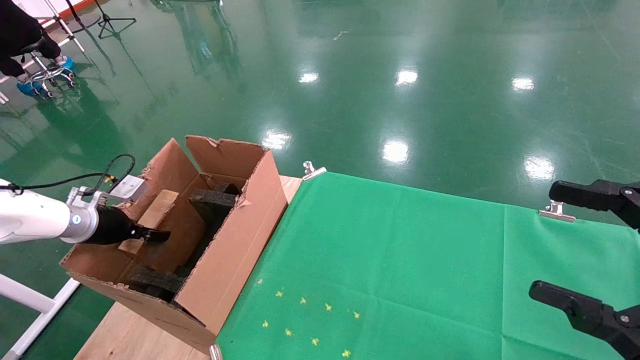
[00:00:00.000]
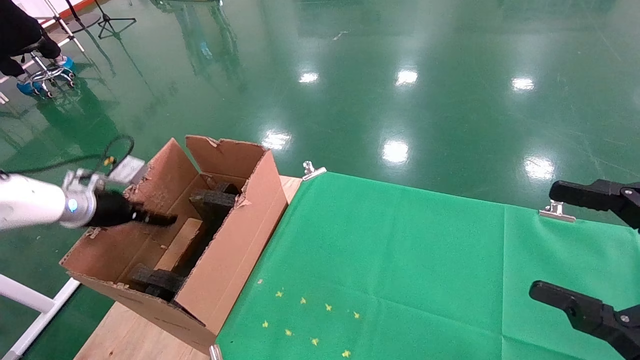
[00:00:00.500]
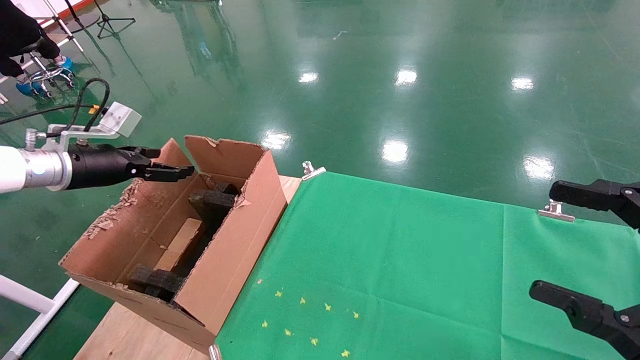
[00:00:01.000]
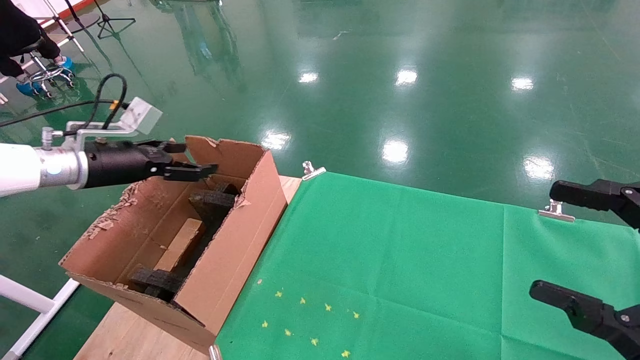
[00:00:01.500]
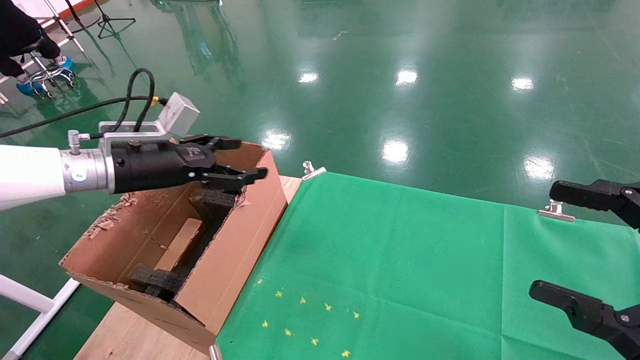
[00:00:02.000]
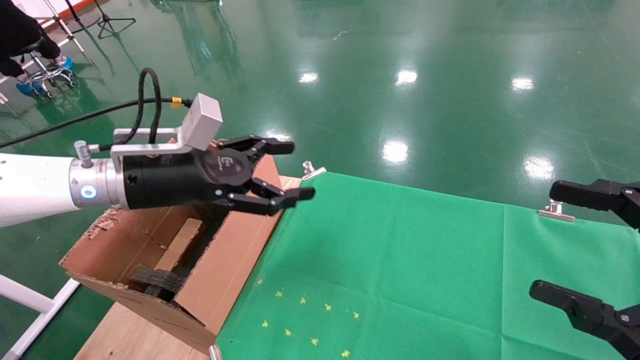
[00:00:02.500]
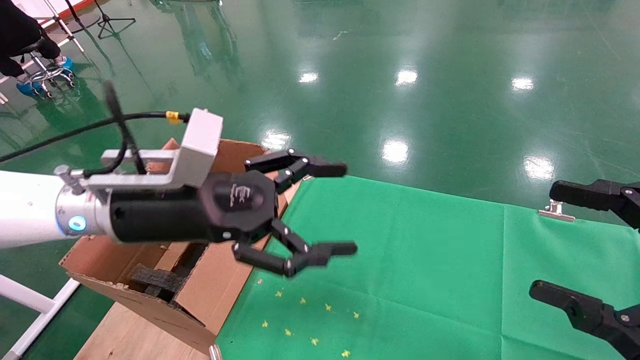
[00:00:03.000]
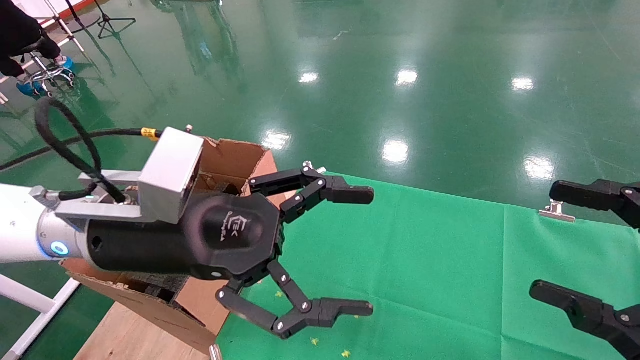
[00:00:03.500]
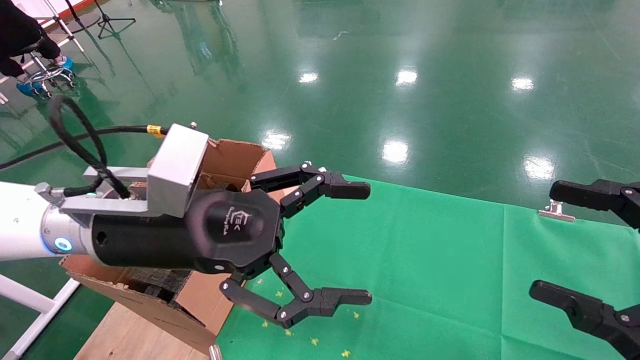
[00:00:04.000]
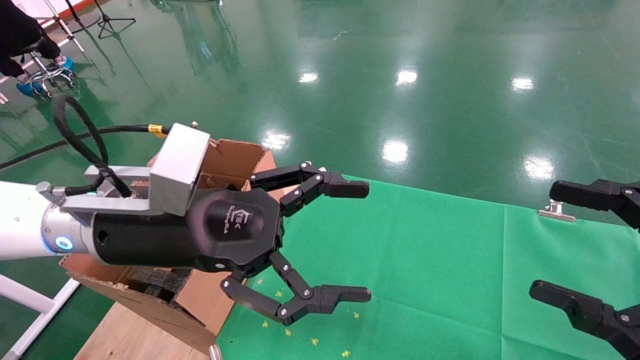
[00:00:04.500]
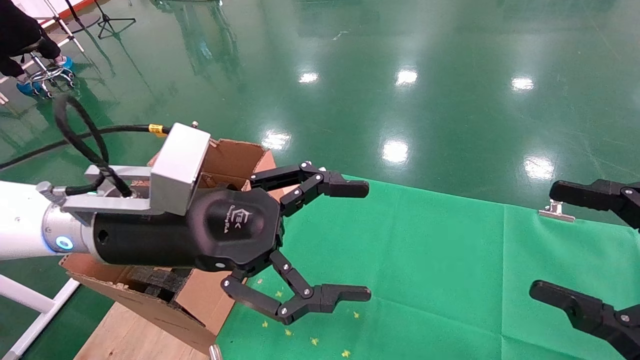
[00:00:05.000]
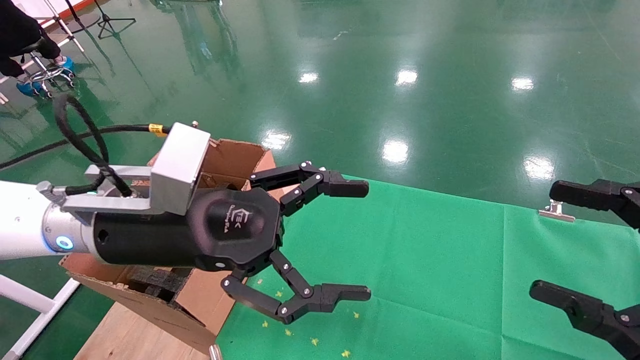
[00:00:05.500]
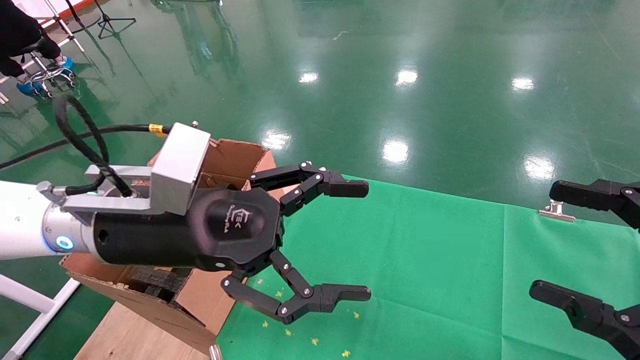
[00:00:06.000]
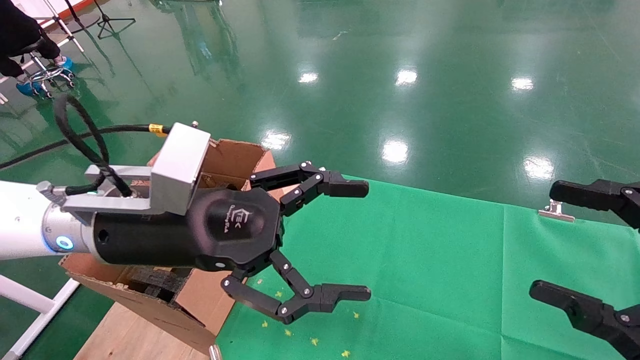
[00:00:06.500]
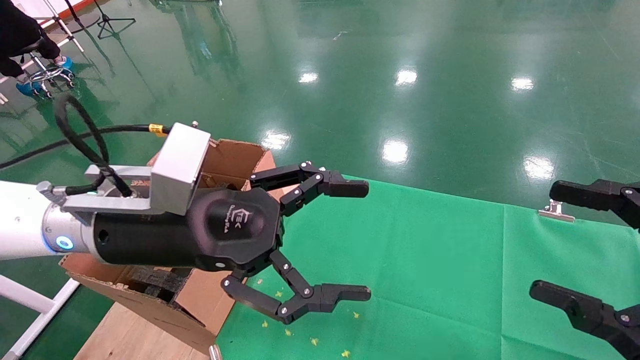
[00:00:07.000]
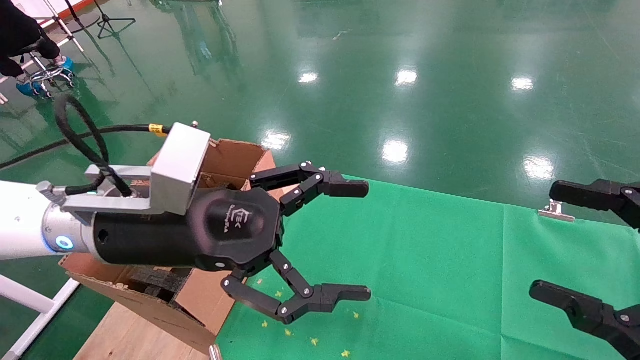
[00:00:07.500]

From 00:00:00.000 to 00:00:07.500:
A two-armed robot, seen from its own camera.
Task of the whole recording: using a robotic arm to pick up a cardboard box and palace it the carton.
From 00:00:00.000 to 00:00:02.000: The left gripper moves to the right and upward, some 20 cm, and opens its fingers.
From 00:00:02.000 to 00:00:04.000: The left gripper shifts some 20 cm to the right and backward.
From 00:00:04.000 to 00:00:07.500: Both grippers stay about where they are.

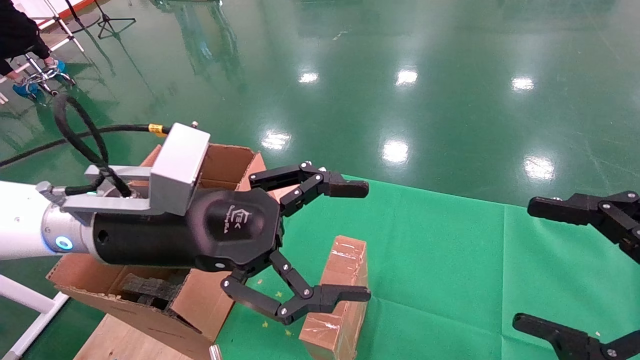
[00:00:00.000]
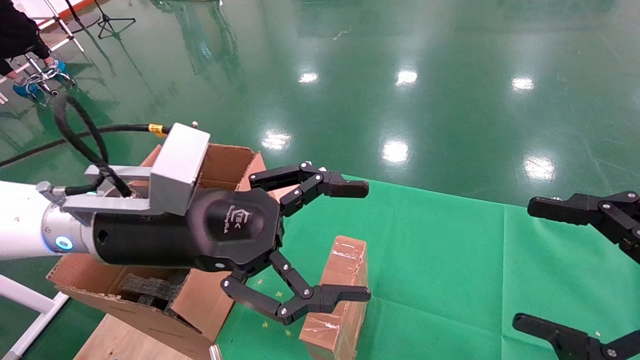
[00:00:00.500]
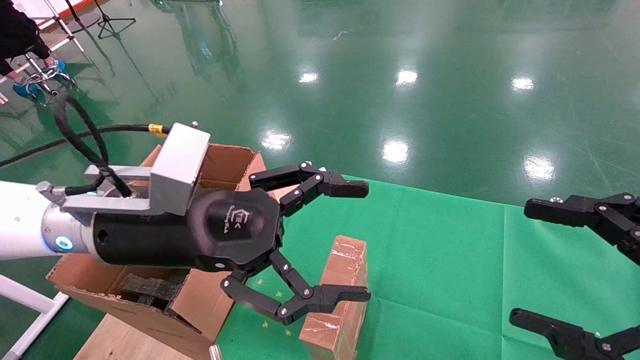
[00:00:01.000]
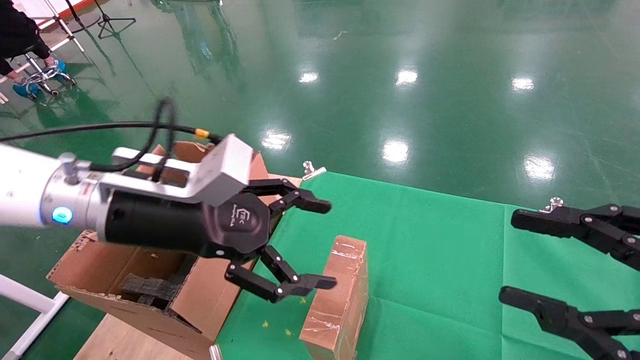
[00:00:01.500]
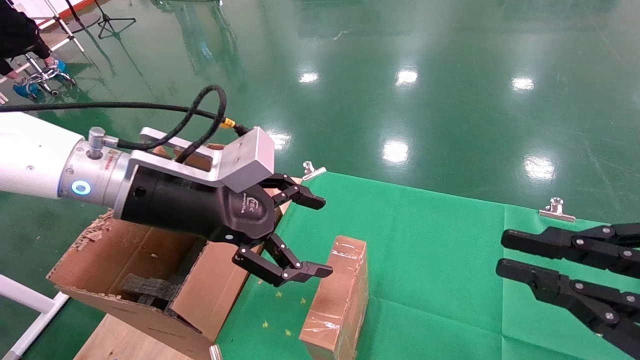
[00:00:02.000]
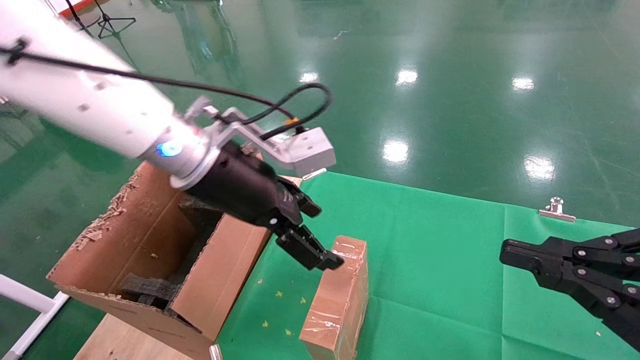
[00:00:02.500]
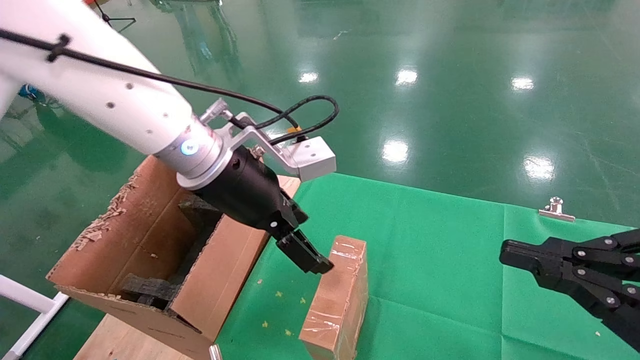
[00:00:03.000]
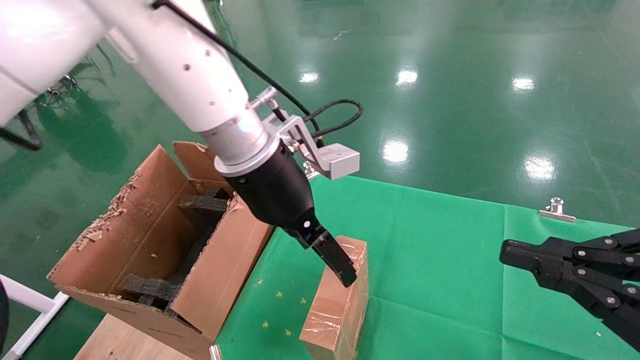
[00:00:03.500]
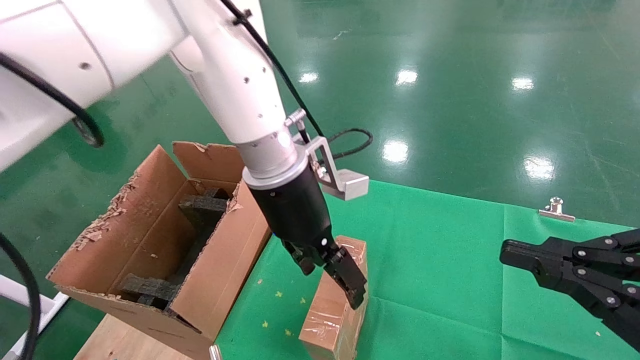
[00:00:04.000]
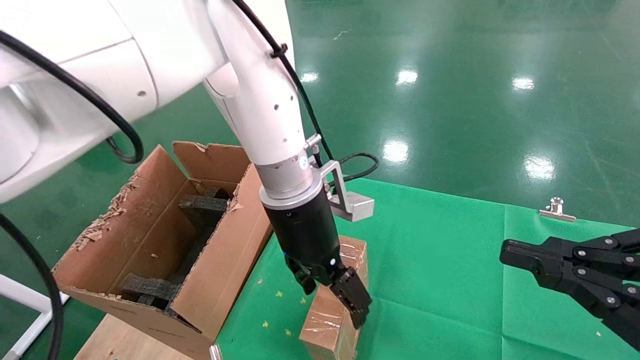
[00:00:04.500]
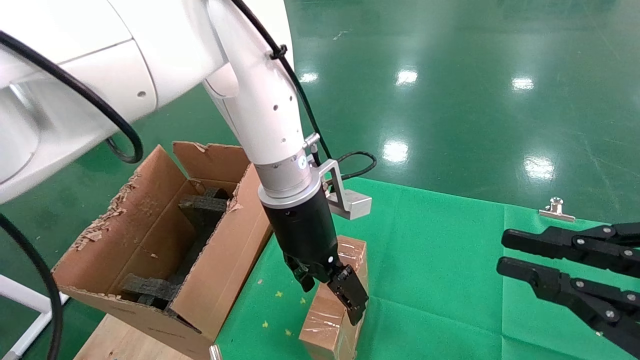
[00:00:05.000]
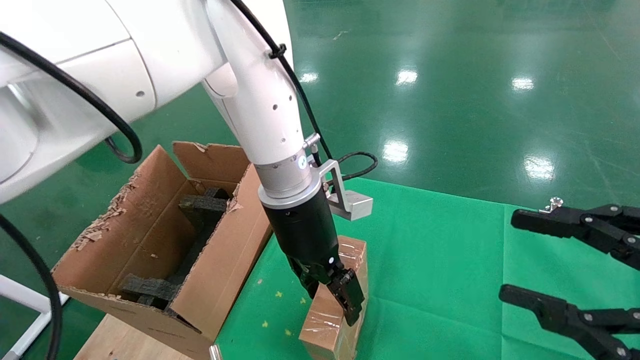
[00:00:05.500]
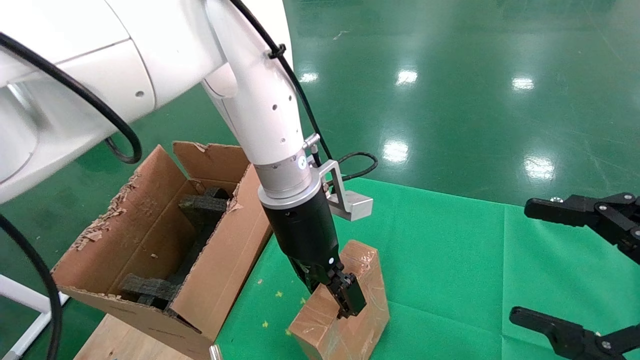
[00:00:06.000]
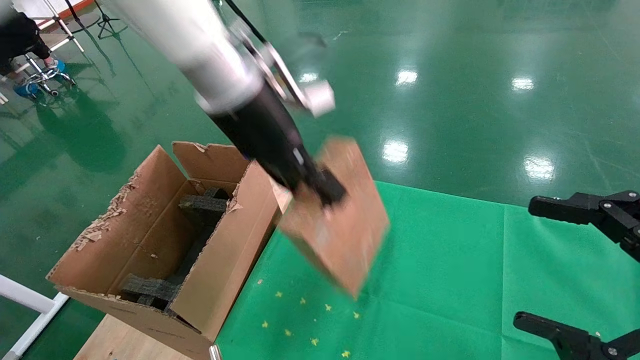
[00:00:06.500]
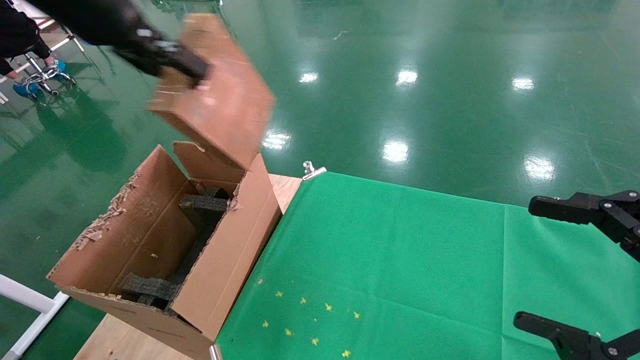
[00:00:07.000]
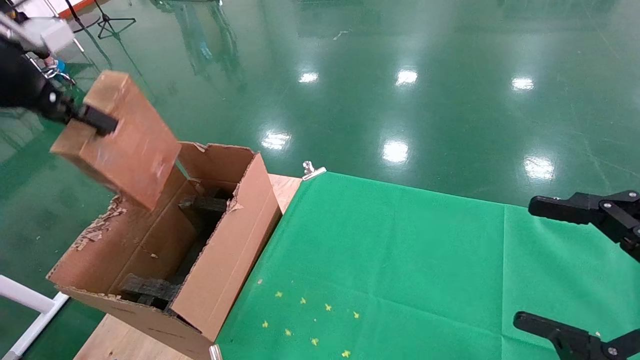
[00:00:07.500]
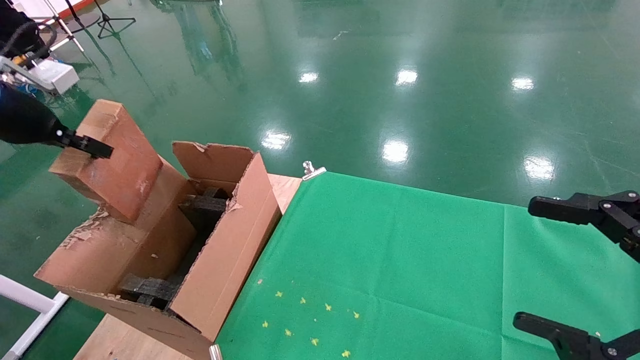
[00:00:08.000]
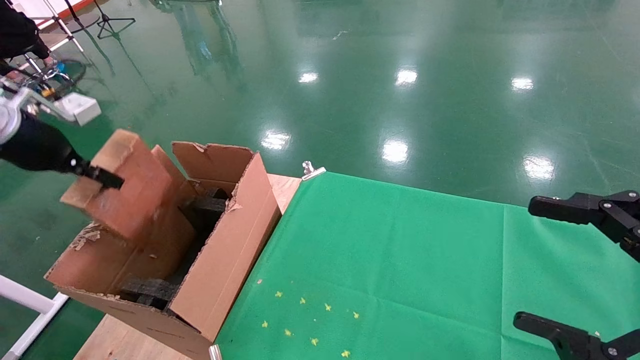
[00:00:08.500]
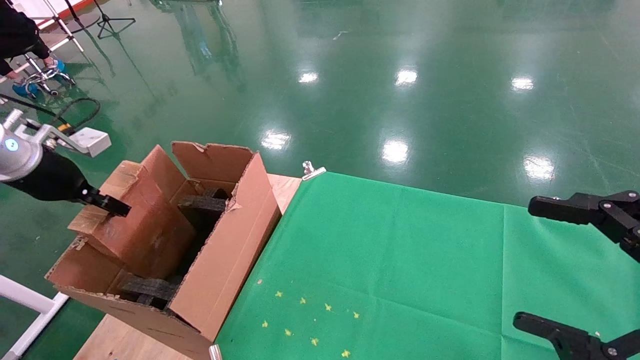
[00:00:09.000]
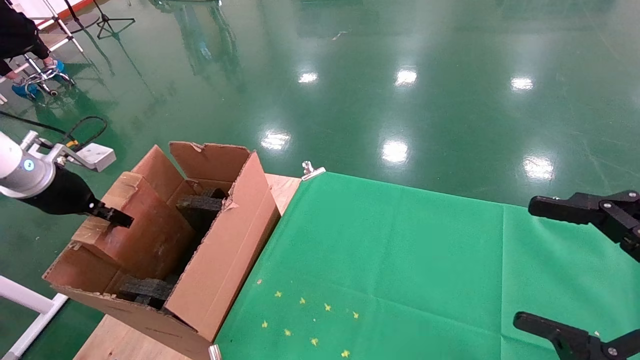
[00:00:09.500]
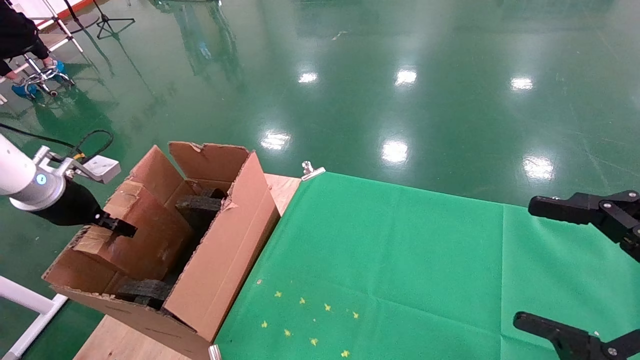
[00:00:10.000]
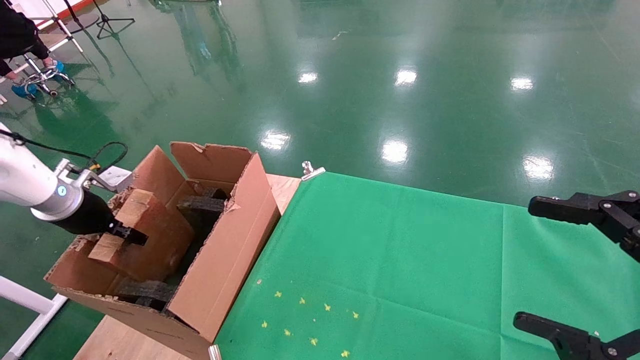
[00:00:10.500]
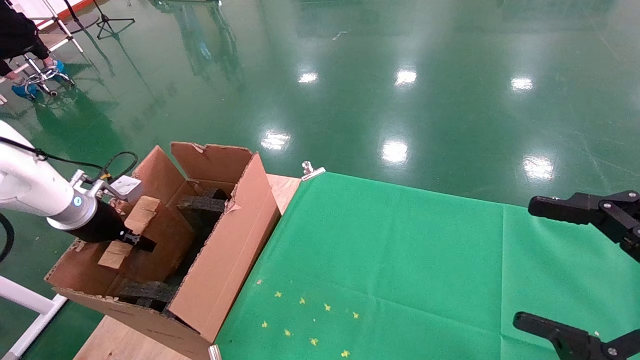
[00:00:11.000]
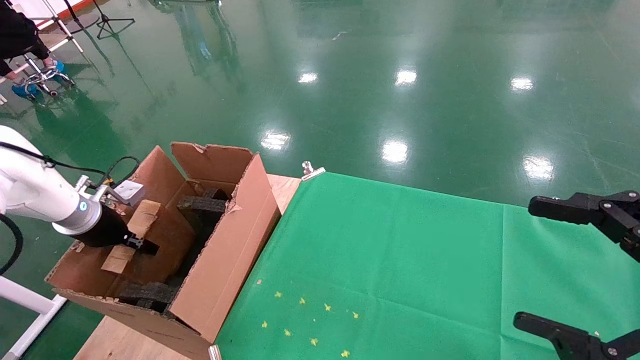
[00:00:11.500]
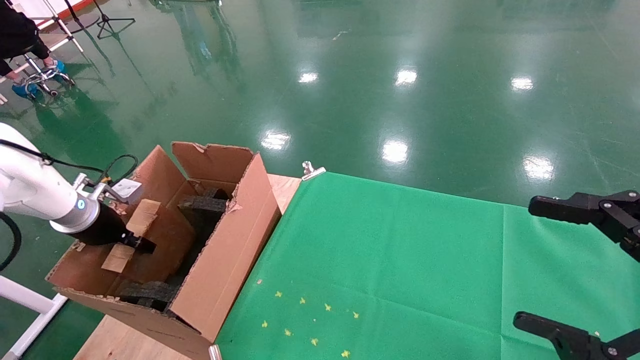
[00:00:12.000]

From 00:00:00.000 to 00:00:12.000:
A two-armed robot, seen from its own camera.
Task of the whole recording: using a robotic arm to pick up a cardboard box and palace it the carton.
Step, from 00:00:01.500 to 00:00:06.000: Pick up the mouse and the power cord paper box.
From 00:00:00.000 to 00:00:02.000: The right gripper closes its fingers, while the left gripper changes place by approximately 5 cm.
From 00:00:02.000 to 00:00:04.000: The left gripper moves to the right and forward, some 15 cm.
From 00:00:04.000 to 00:00:06.000: The right gripper opens its fingers. Meanwhile the left gripper closes.
From 00:00:06.000 to 00:00:08.000: The left gripper is displaced to the left by some 40 cm.
From 00:00:08.000 to 00:00:10.000: The left gripper travels downward by some 15 cm.
From 00:00:10.000 to 00:00:12.000: The left gripper travels downward by roughly 5 cm.
